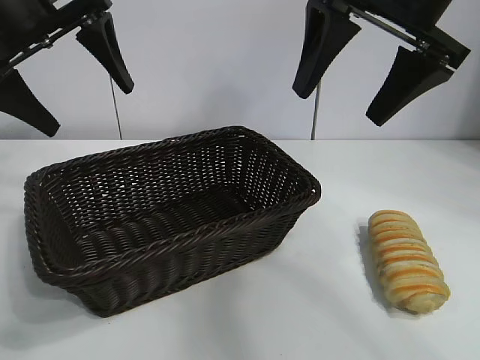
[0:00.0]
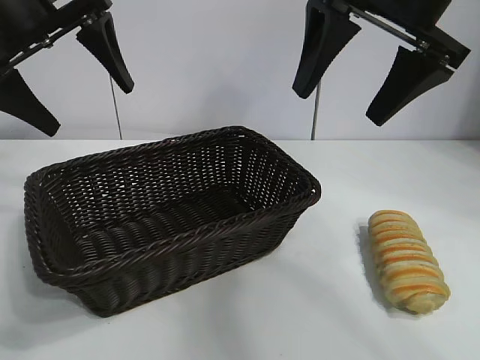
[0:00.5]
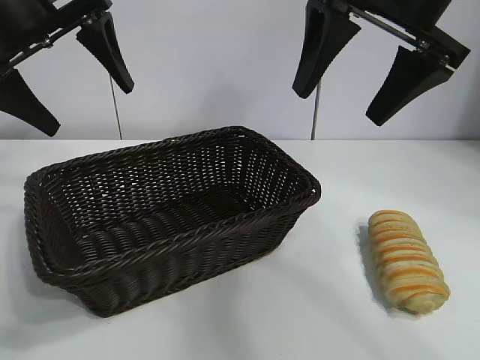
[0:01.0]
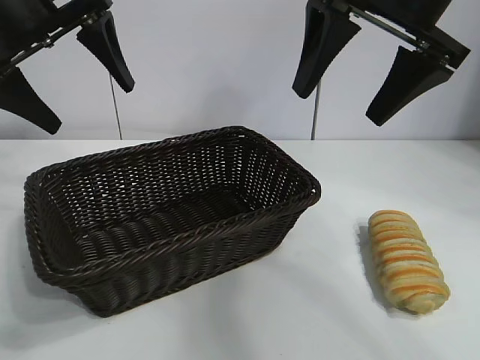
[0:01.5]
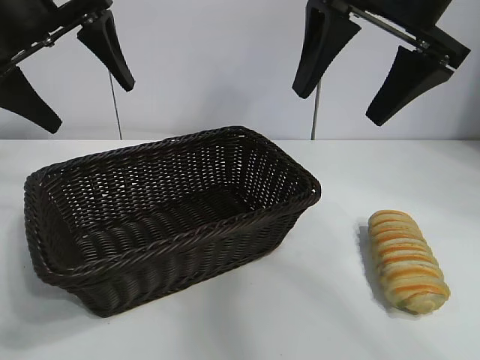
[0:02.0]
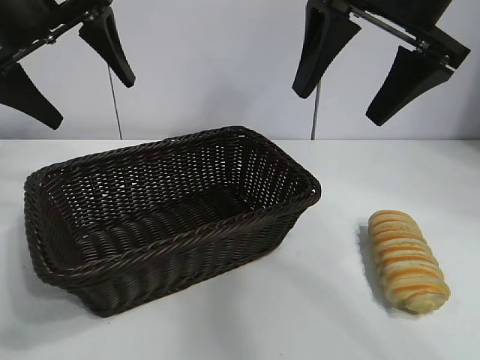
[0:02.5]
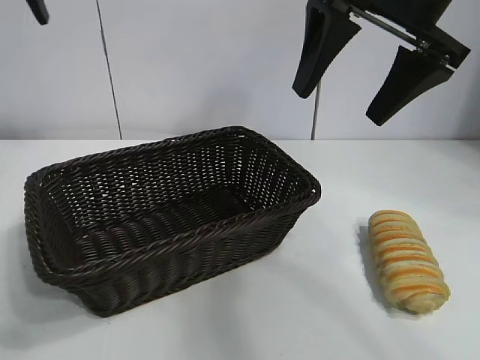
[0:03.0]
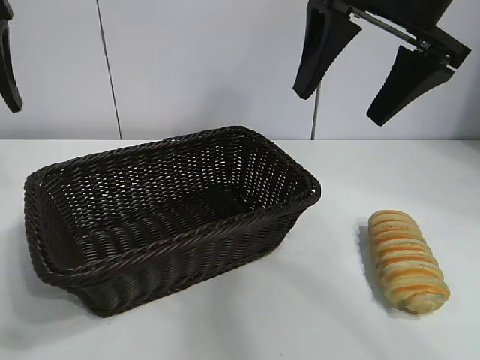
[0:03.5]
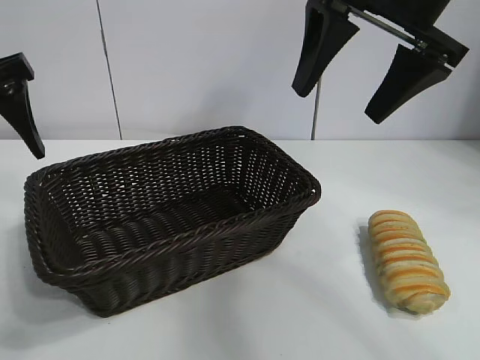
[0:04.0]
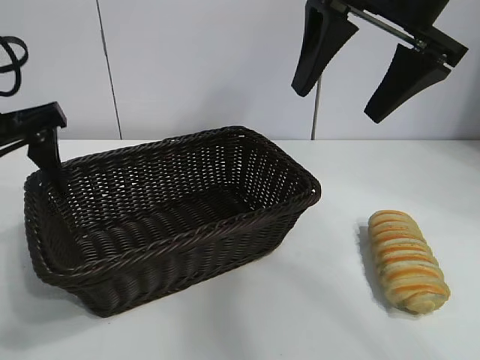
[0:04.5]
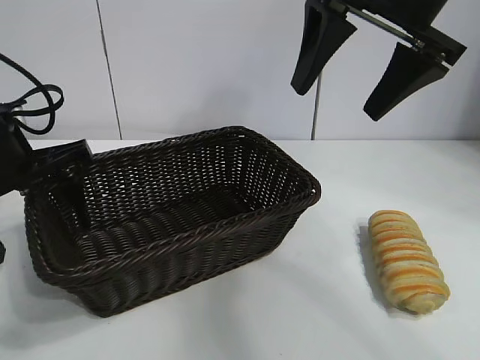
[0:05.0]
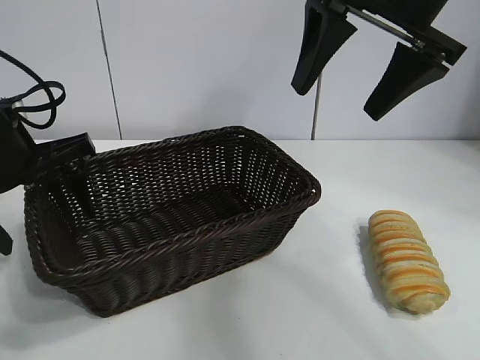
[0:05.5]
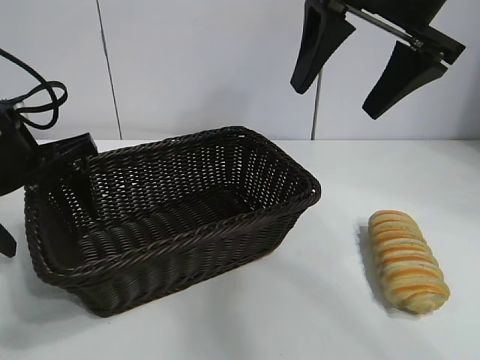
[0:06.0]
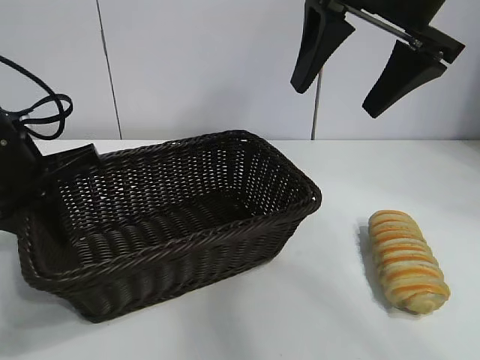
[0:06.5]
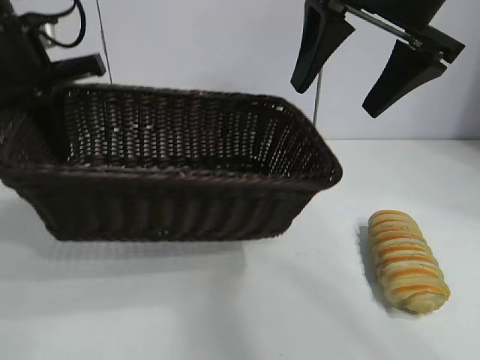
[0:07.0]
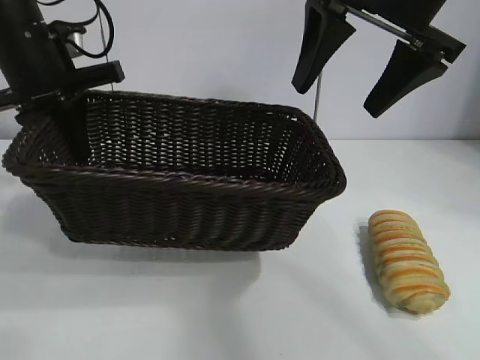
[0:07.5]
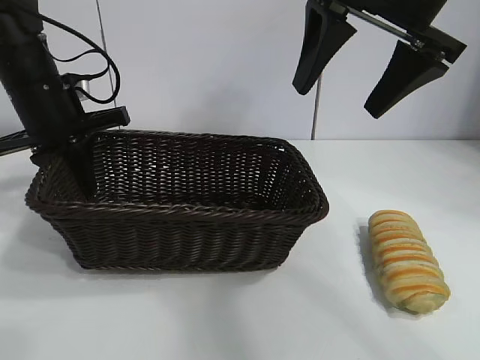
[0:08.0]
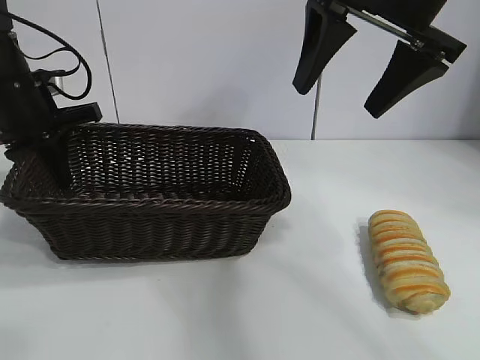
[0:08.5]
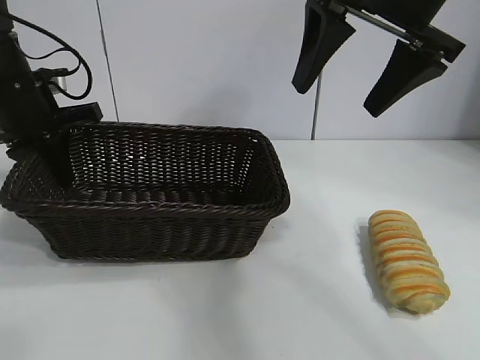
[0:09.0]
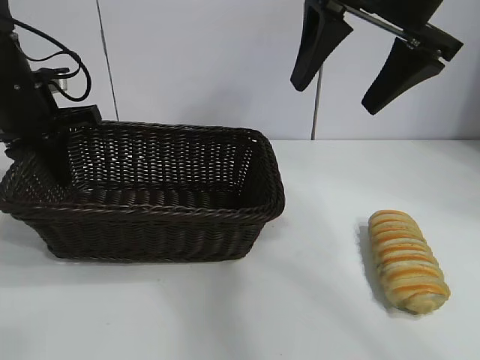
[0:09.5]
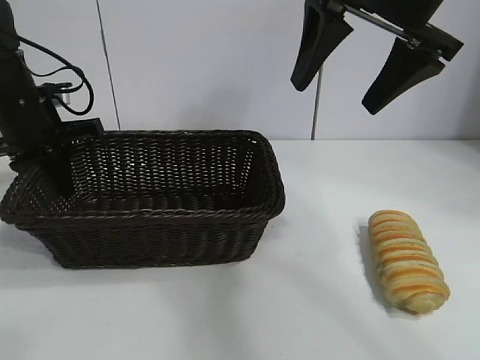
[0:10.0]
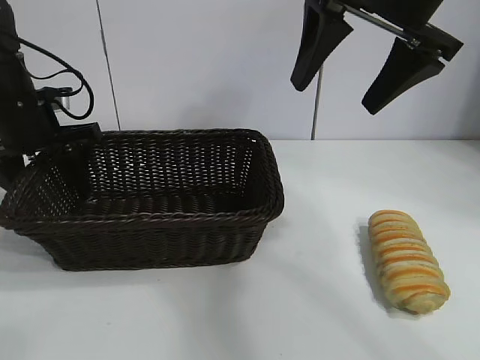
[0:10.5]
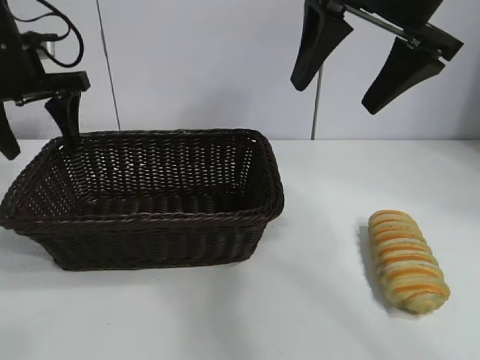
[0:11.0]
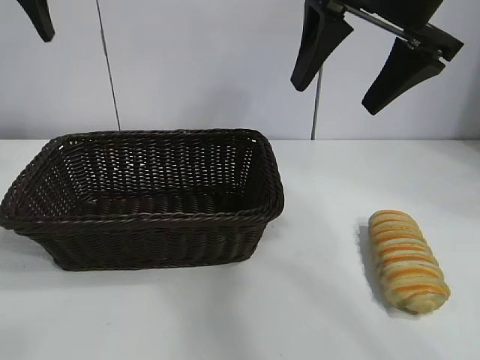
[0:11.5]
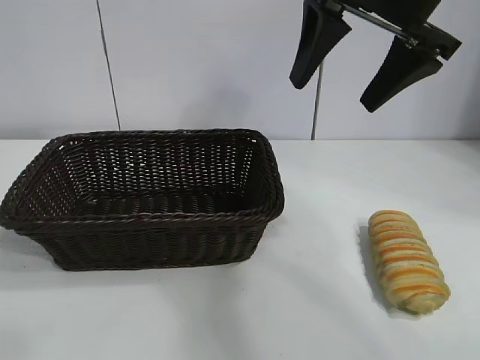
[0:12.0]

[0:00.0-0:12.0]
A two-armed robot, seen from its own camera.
Task of the whole recording: pick up the long bread and put it into the basket.
Step, 0:01.5 to 0:06.5: Grasp the basket with the left gripper.
Step, 0:07.0 to 0:10.5: Place the basket in the center of the table with the left gripper.

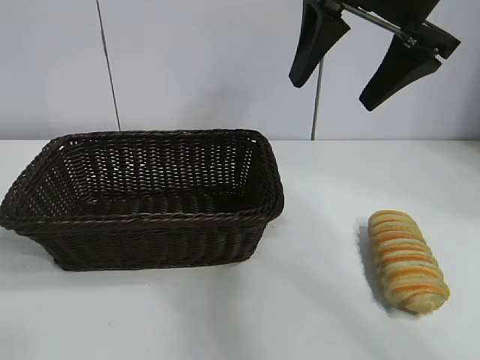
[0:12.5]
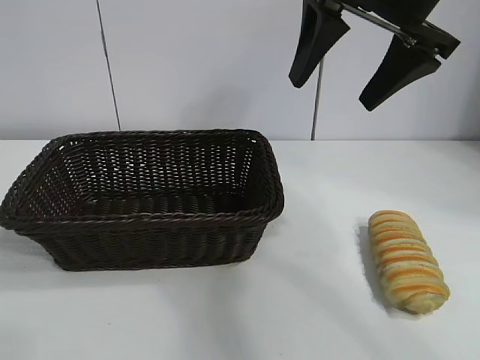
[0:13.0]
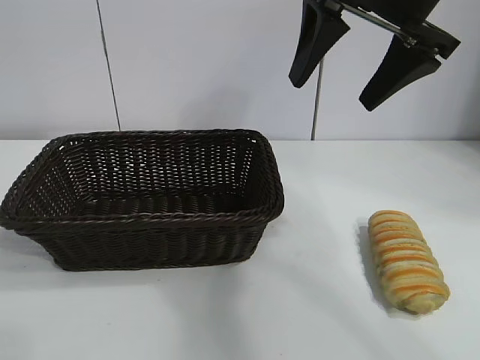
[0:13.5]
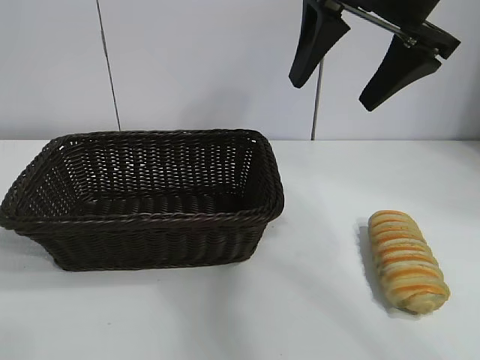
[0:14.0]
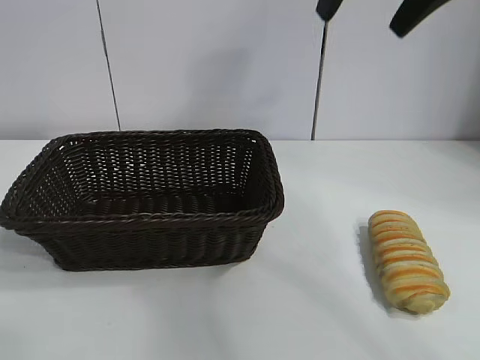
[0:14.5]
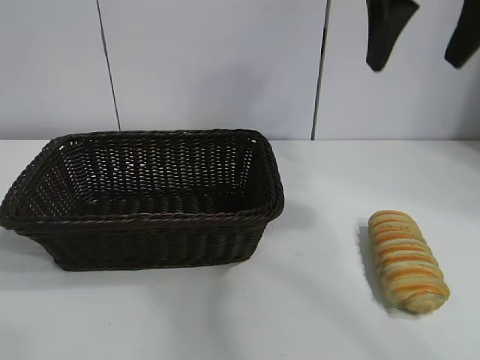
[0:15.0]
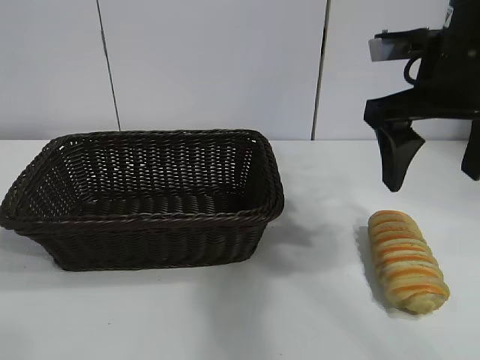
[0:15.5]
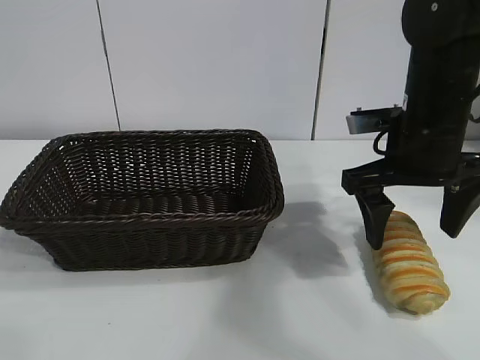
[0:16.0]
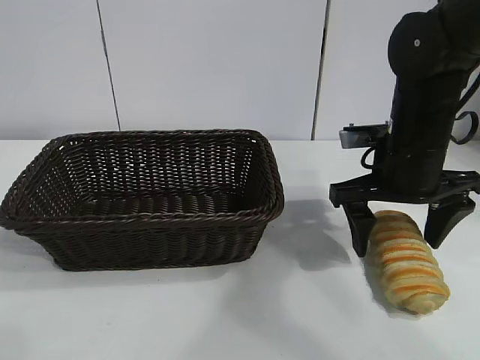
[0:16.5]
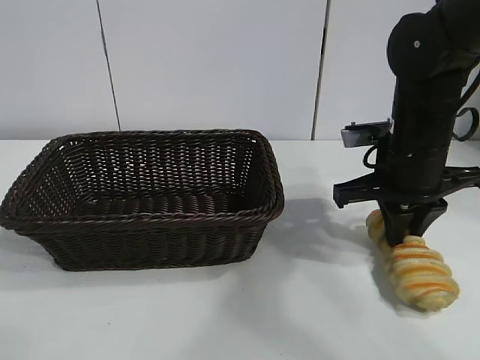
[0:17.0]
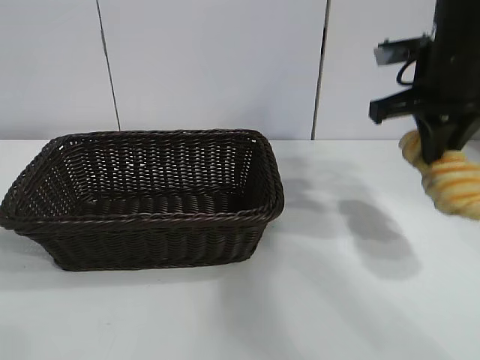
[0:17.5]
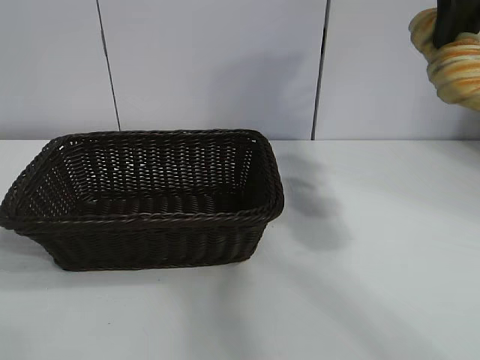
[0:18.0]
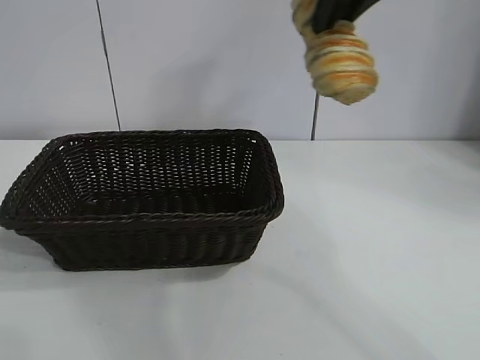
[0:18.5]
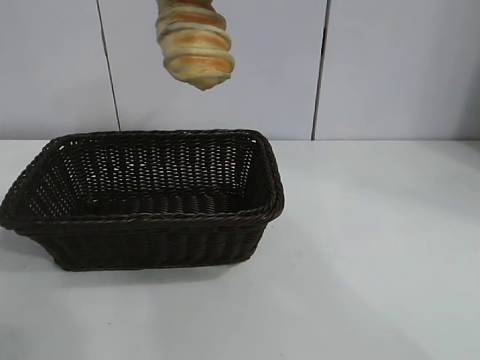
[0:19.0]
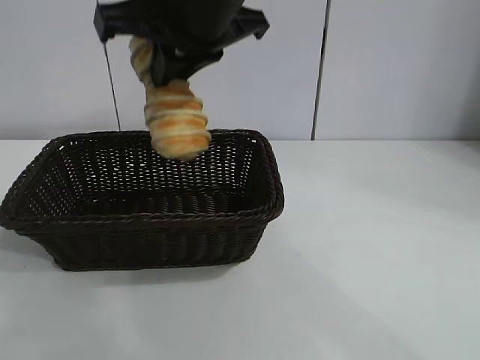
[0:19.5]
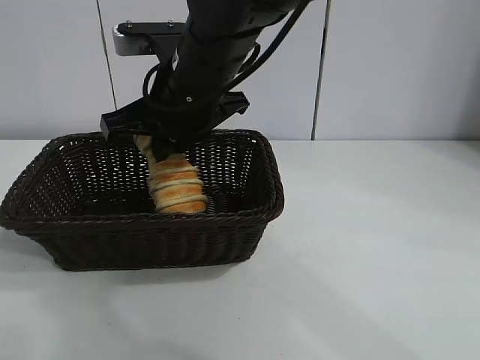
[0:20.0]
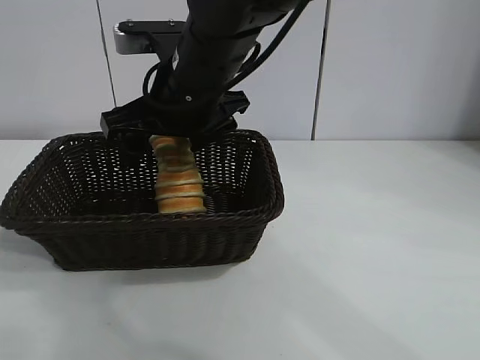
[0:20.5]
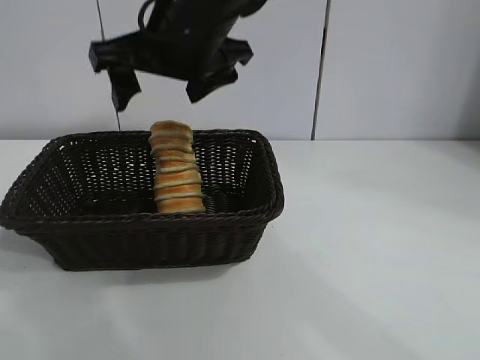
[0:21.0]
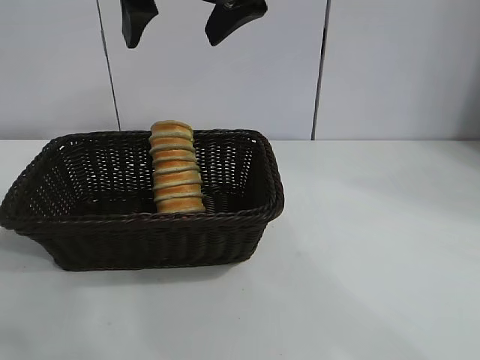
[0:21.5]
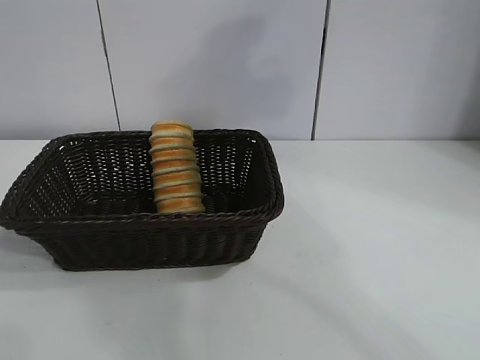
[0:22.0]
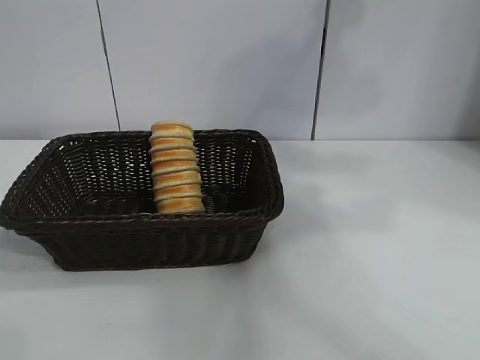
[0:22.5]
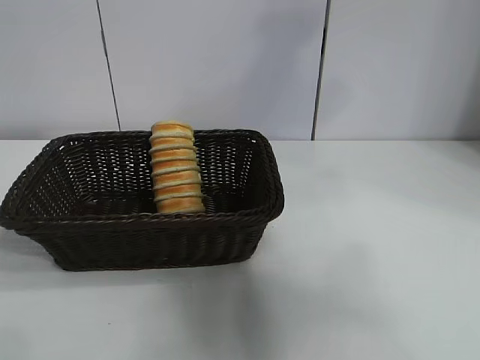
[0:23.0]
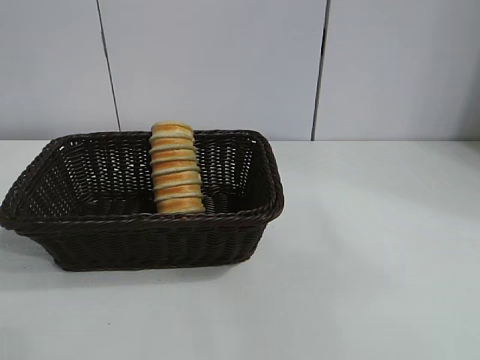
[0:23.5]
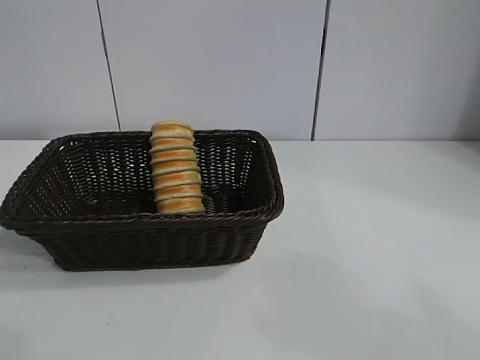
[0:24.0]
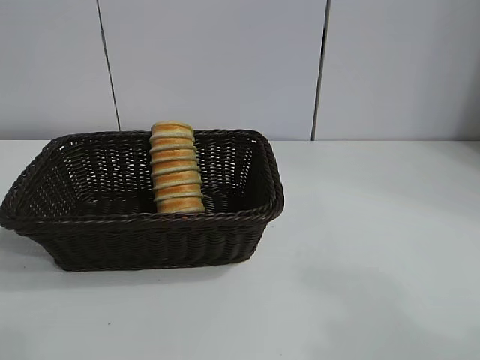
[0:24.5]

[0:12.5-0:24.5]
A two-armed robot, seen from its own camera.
Task of the whole recording: pick up the long bread and put it into the basket.
Step, 0:12.5 to 0:17.0: Grasp the long bread with right gripper.
Step, 0:17.5 to 0:20.5: Place the long bread in the basket with right gripper.
